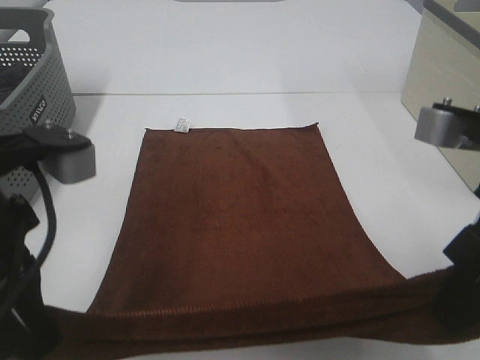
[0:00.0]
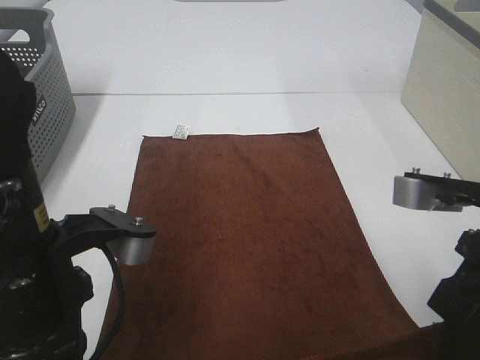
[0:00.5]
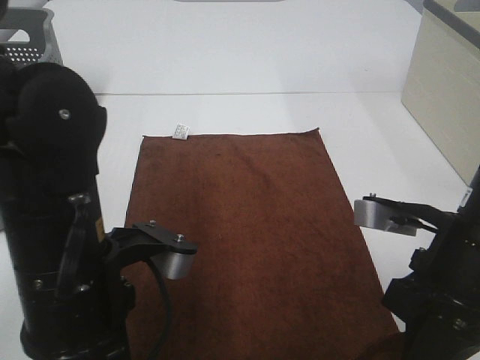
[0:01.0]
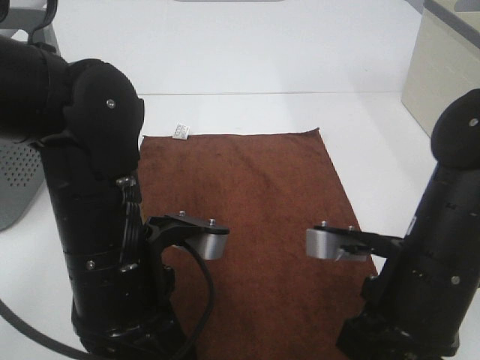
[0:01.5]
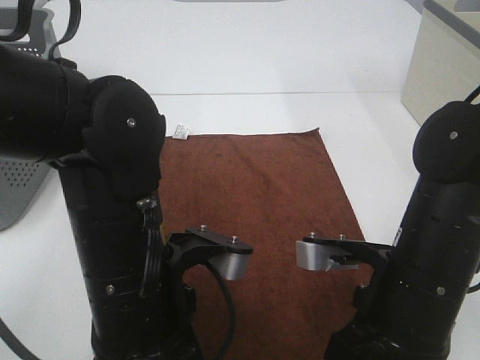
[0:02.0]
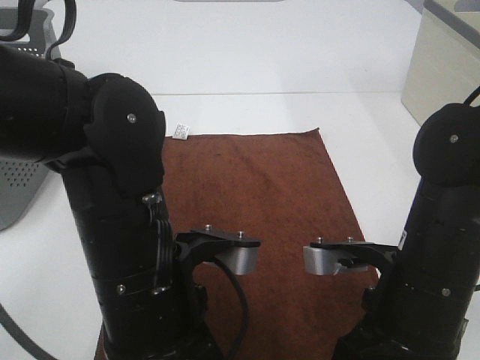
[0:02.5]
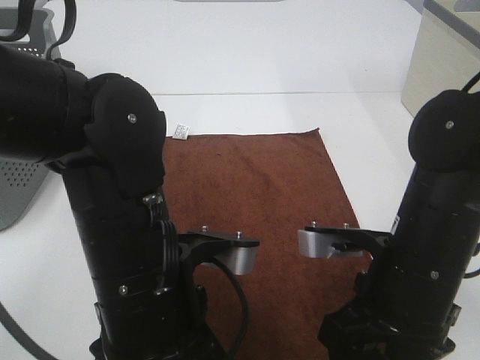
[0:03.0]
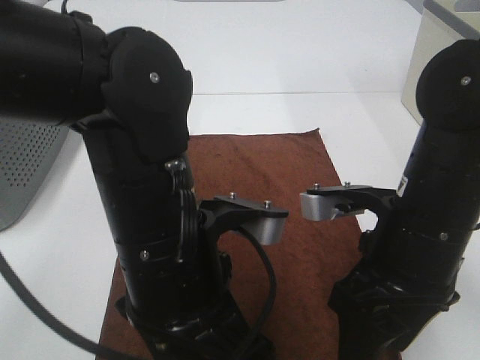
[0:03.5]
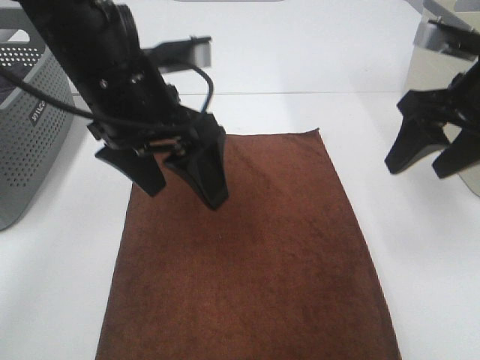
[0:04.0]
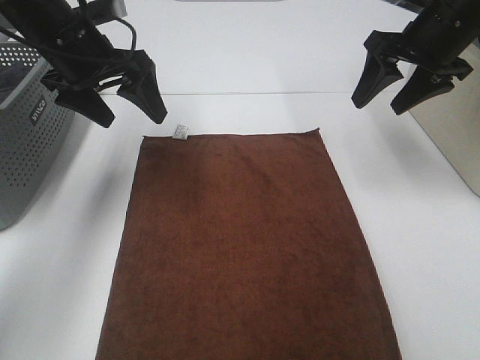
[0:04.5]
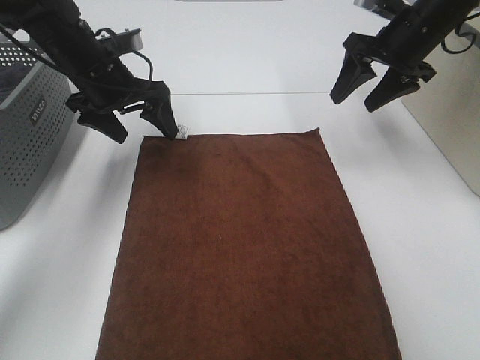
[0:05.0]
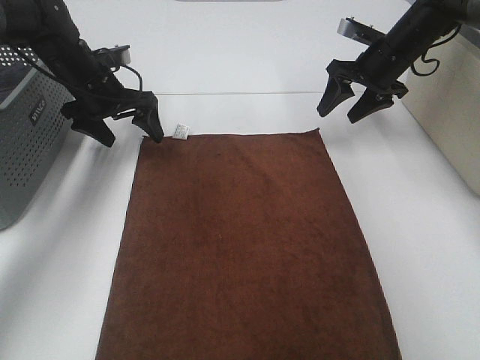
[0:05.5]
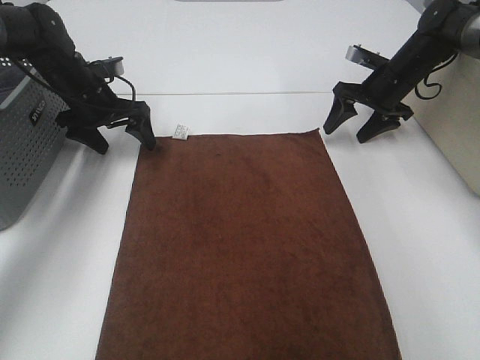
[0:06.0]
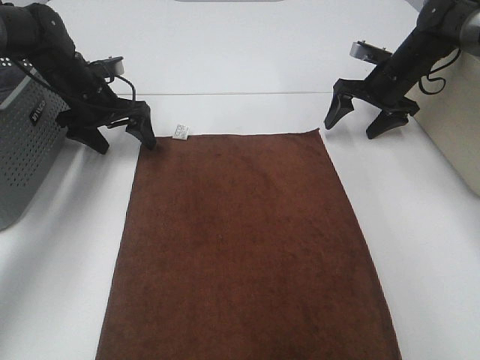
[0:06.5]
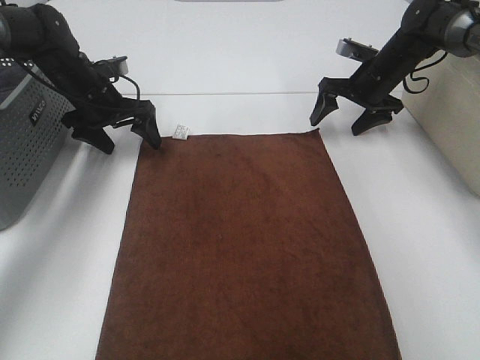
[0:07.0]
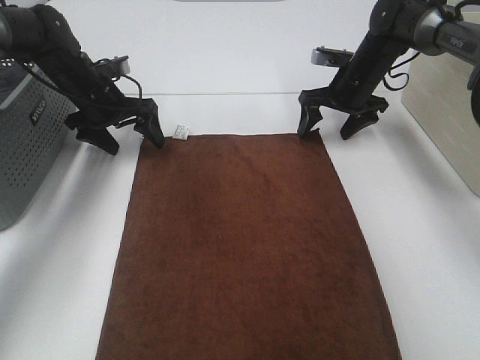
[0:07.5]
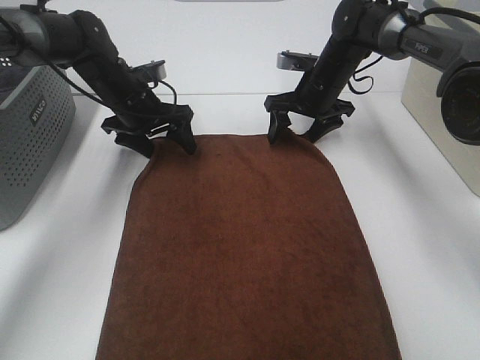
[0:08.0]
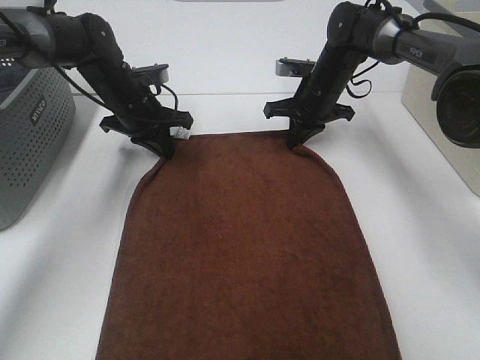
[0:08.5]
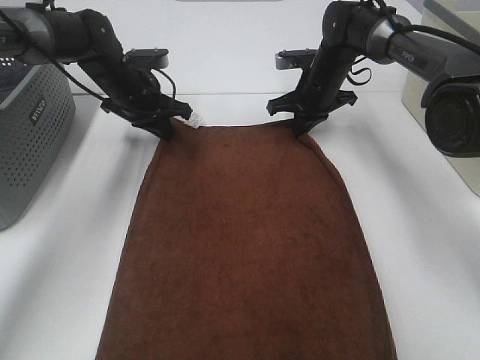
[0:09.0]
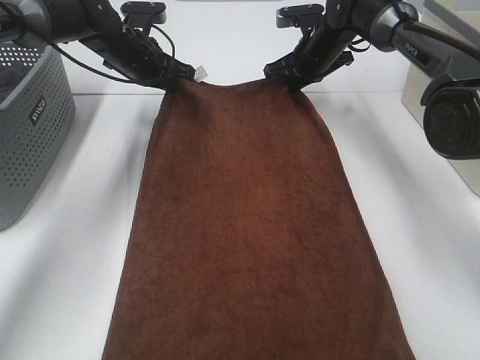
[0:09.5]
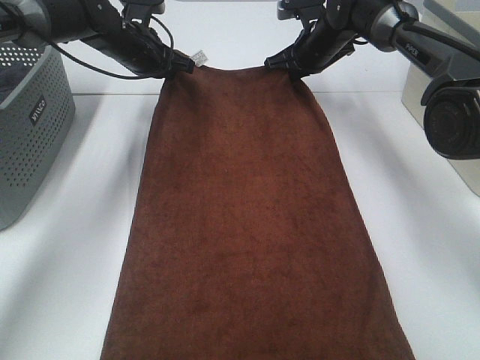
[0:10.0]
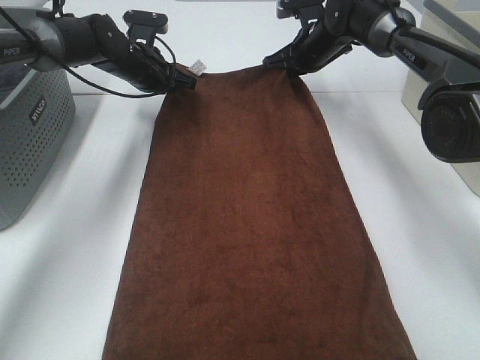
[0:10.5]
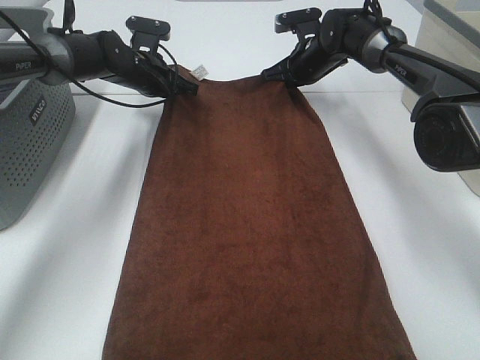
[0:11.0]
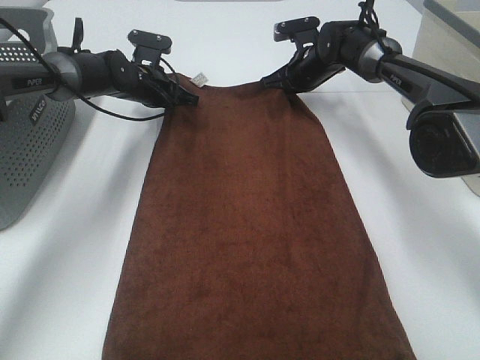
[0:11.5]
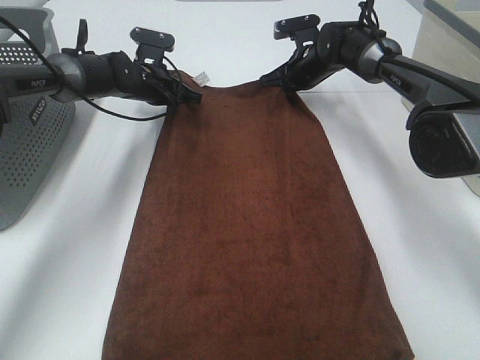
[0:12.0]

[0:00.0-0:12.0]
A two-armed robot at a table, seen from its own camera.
Task of the whole recording: Remove the towel and place it.
Step, 0:00.0 to 0:06.5: Left hand:adjust the brown towel.
Step, 0:00.0 to 0:06.5: Right hand:adjust the brown towel.
0:00.0 to 0:02.0: The left gripper goes roughly 15 cm to the right and downward. The right gripper moves downward and to the left, roughly 15 cm.
0:02.0 to 0:04.0: The left gripper travels forward and upward by about 15 cm, and opens up, while the right gripper travels forward, upward and to the right by approximately 20 cm, and opens its fingers.
0:04.0 to 0:06.0: The left gripper goes about 30 cm forward, downward and to the left. The right gripper travels forward and downward by approximately 30 cm.
0:06.0 to 0:08.0: The left gripper is displaced to the right by roughly 5 cm. The right gripper is displaced to the left by approximately 10 cm.
0:08.0 to 0:10.0: The two grippers go about 10 cm forward and upward. The right gripper closes up. Meanwhile the left gripper closes.
0:10.0 to 0:12.0: The left gripper travels downward by about 10 cm.

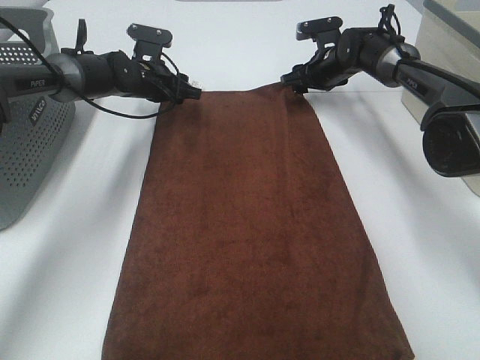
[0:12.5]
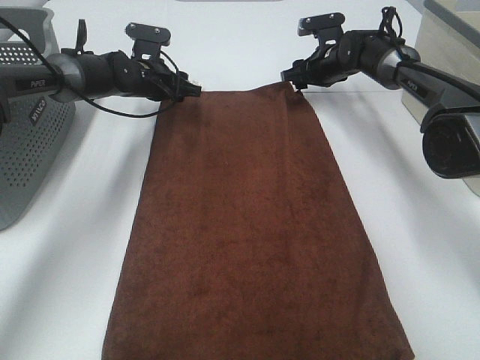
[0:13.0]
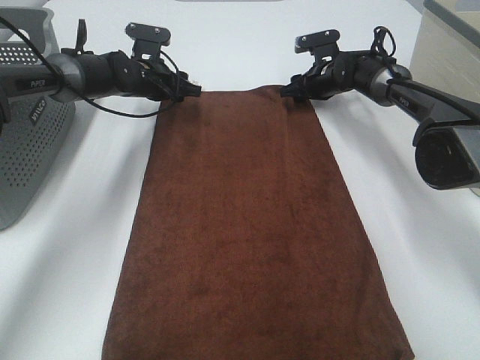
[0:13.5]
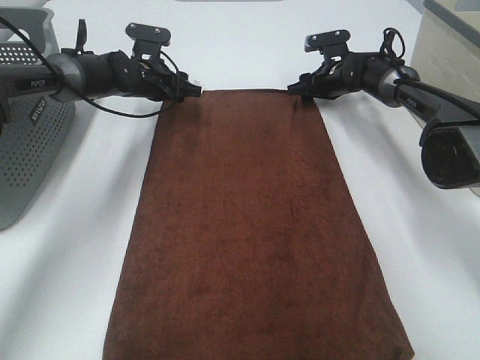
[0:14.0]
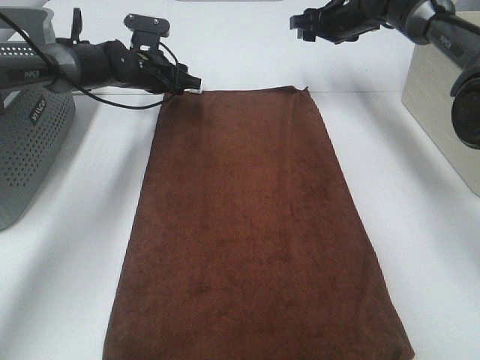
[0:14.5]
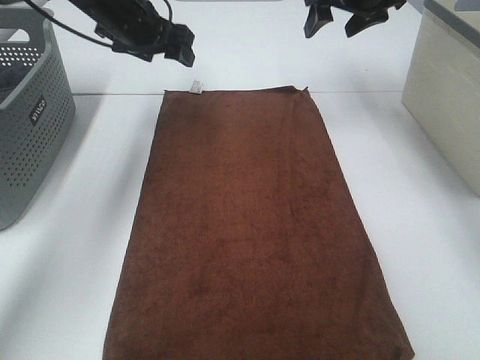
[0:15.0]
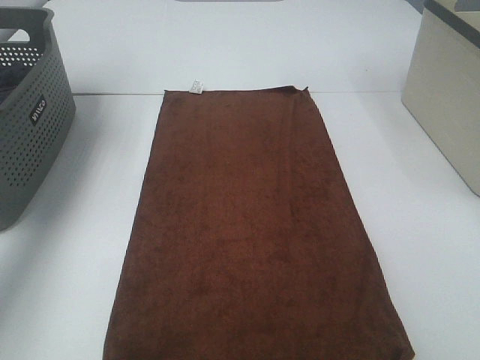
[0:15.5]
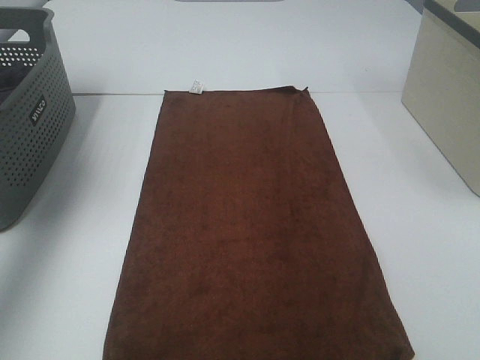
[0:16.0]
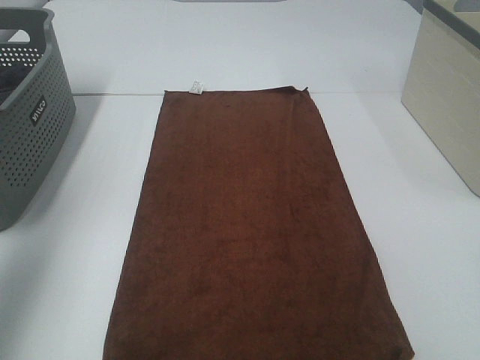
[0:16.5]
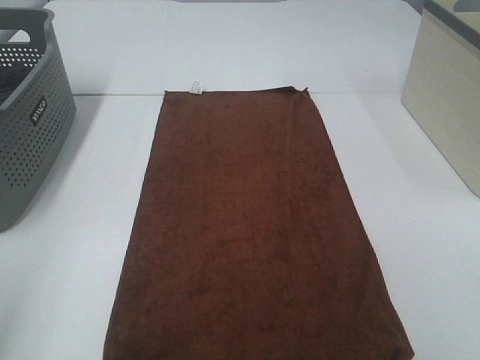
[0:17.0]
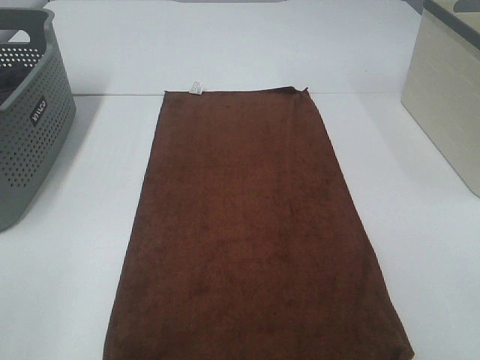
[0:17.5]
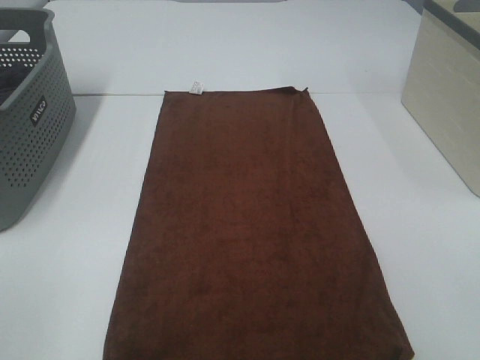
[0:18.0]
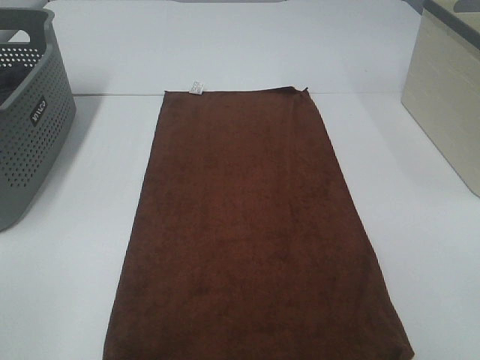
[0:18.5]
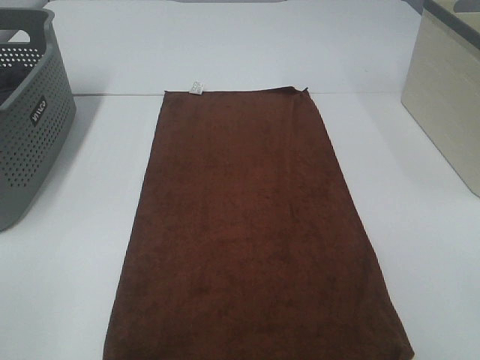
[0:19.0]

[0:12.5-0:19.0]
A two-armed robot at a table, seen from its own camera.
Task of the whole recording: Remove the towel and place it.
0:12.5 to 0:14.5: The right gripper travels upward by some 10 cm.
0:14.5 to 0:17.0: Both grippers travel together backward, about 50 cm.

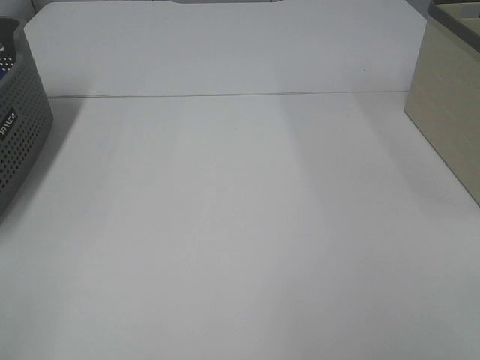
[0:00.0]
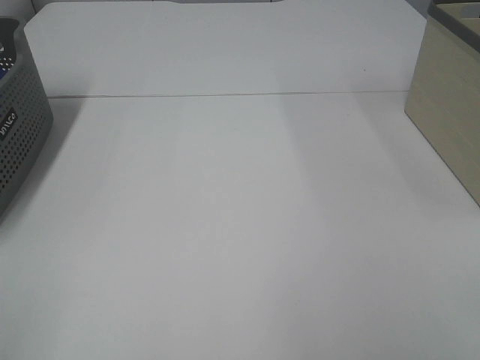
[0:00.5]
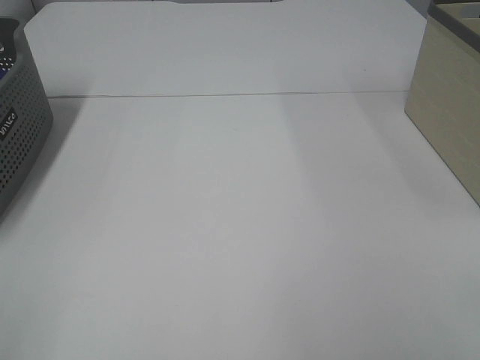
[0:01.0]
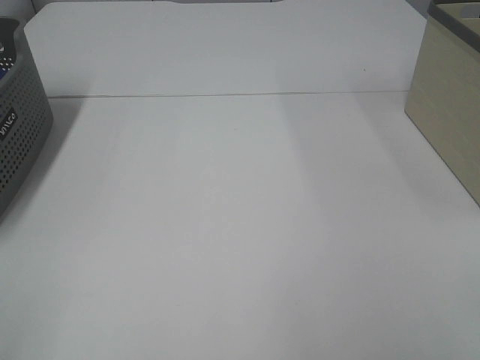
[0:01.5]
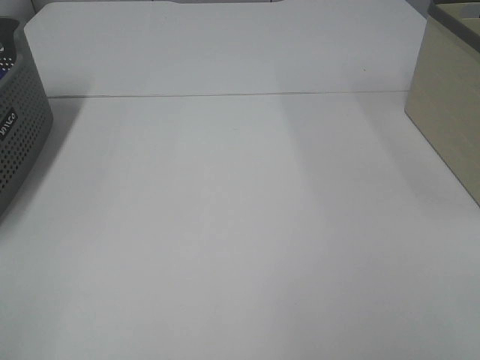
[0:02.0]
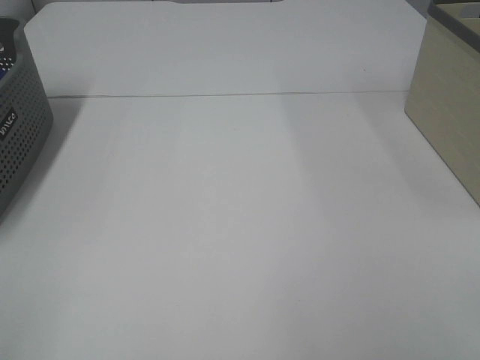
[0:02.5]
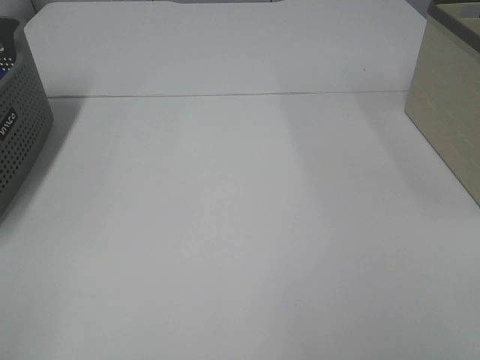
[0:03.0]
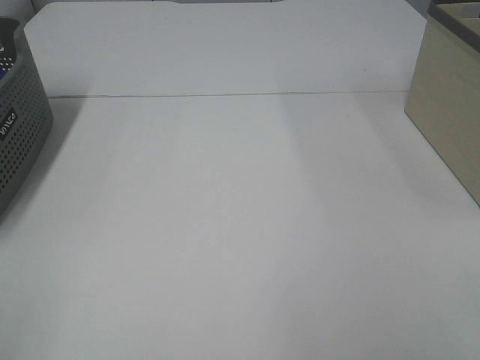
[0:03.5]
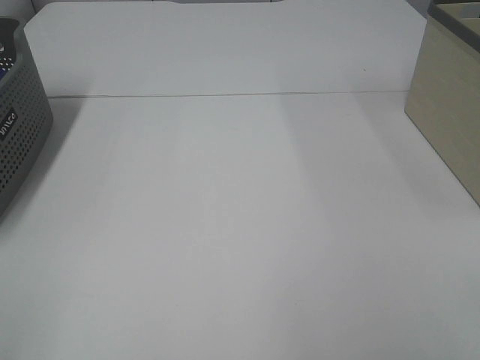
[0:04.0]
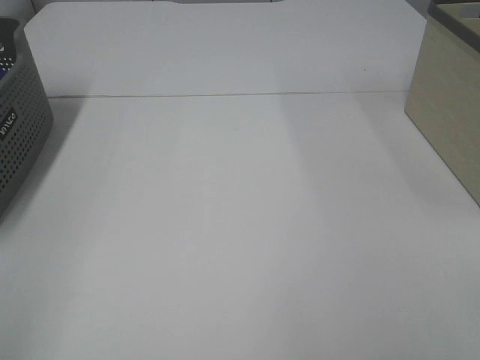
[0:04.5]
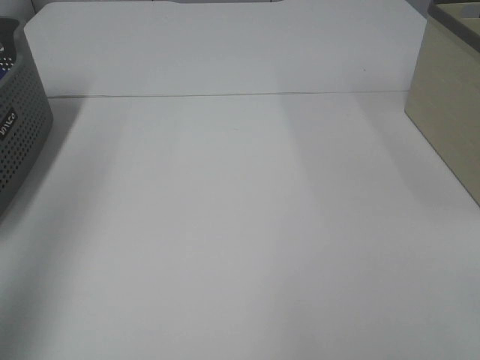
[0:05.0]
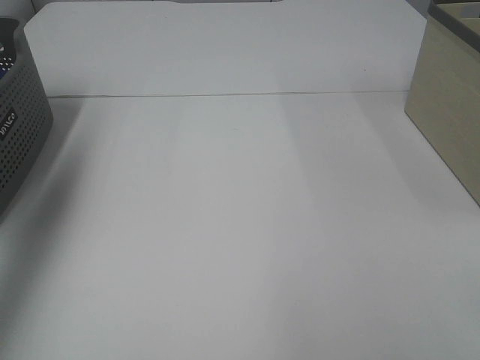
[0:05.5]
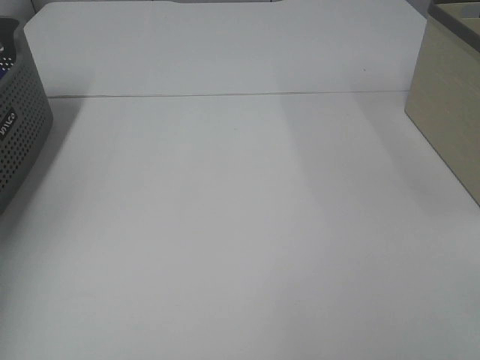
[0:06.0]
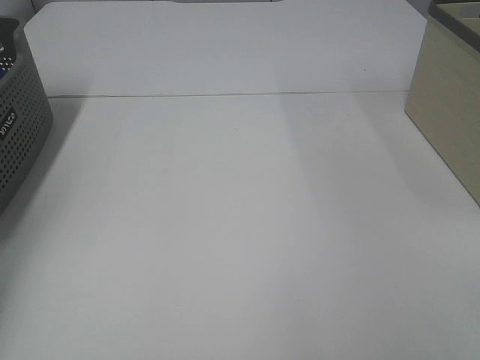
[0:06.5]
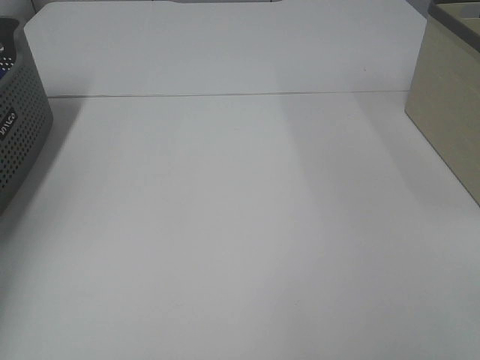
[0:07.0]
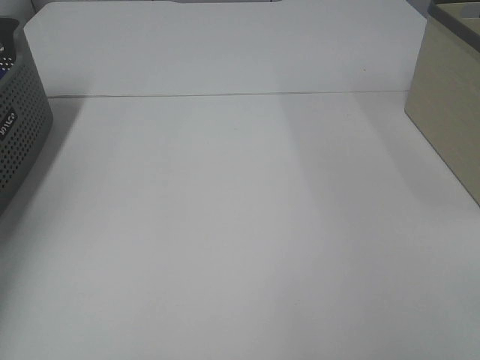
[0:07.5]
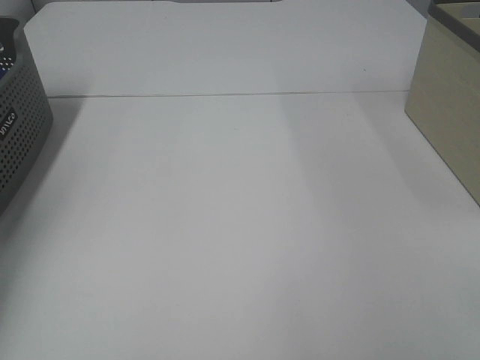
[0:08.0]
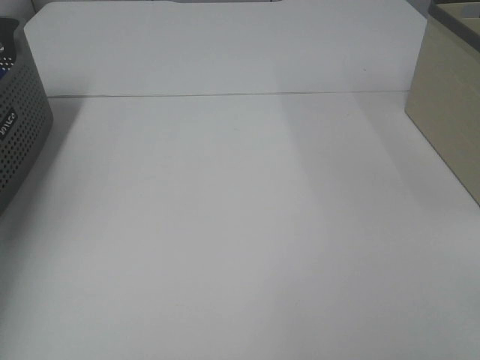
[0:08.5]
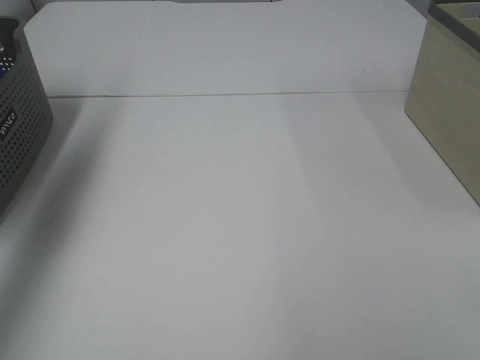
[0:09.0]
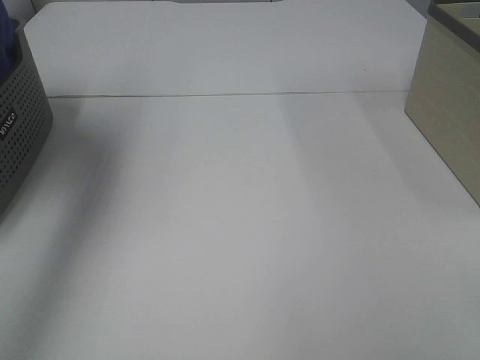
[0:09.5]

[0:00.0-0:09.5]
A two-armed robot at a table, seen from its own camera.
Task of the whole recording: Remove the towel and place it.
0:00.0 to 0:04.0: The two grippers keep their place.
0:04.0 to 0:05.5: The left gripper shifts approximately 35 cm forward.
0:05.5 to 0:07.5: The left gripper is displaced downward and forward by some 20 cm, and closes up.
0:07.5 to 0:09.5: The left gripper heads upward, to the right and backward, covering roughly 40 cm, and closes.
